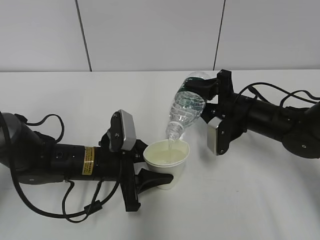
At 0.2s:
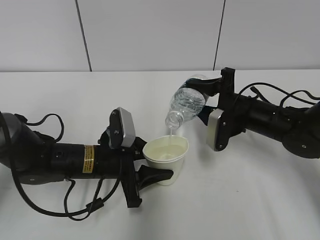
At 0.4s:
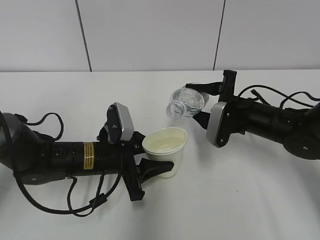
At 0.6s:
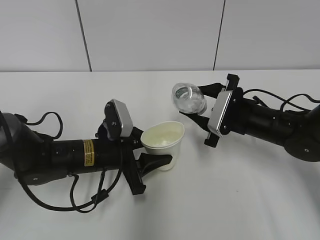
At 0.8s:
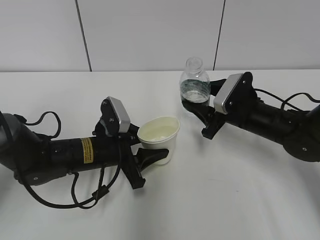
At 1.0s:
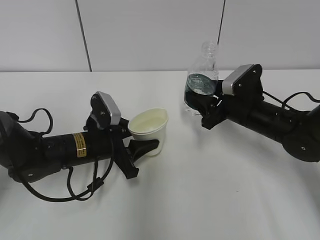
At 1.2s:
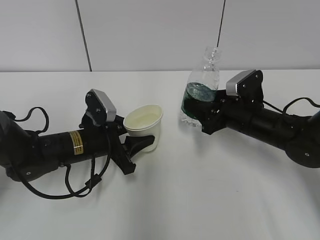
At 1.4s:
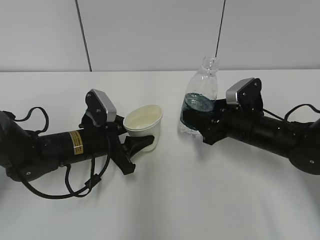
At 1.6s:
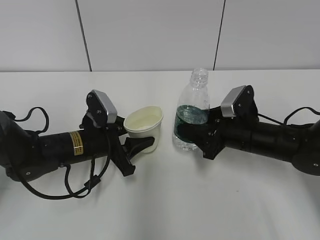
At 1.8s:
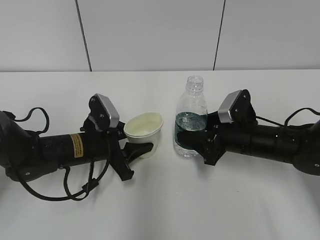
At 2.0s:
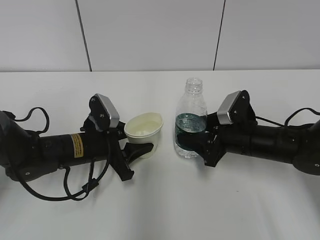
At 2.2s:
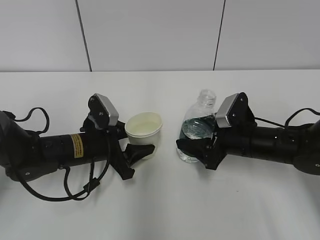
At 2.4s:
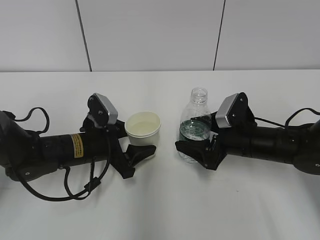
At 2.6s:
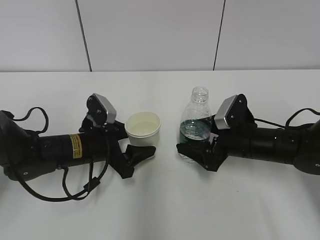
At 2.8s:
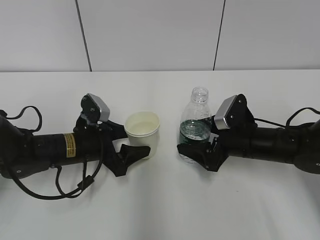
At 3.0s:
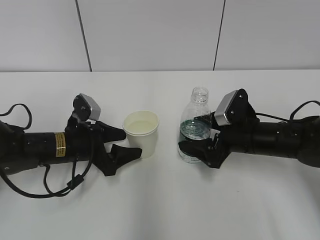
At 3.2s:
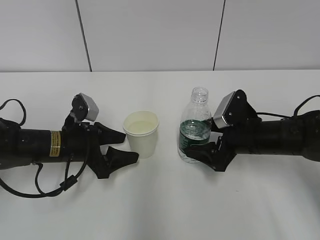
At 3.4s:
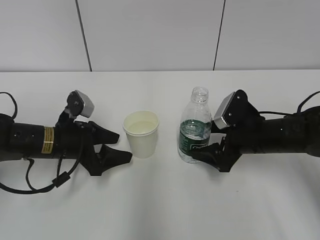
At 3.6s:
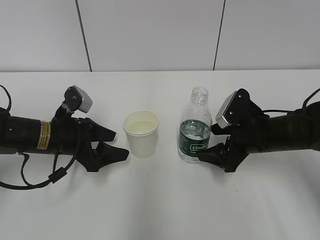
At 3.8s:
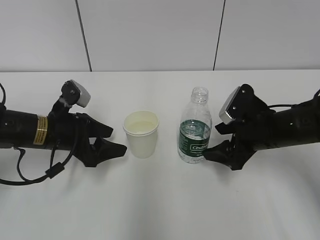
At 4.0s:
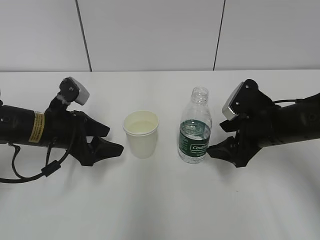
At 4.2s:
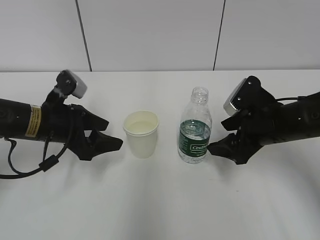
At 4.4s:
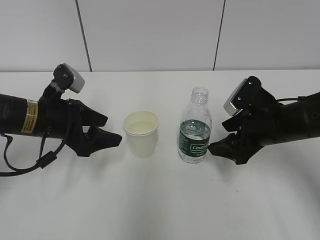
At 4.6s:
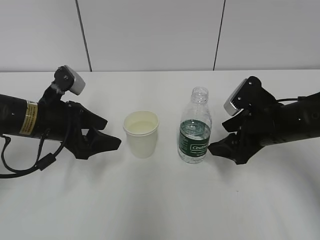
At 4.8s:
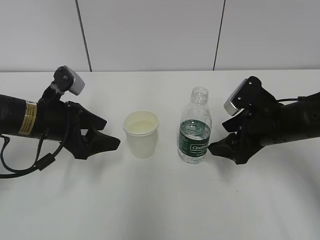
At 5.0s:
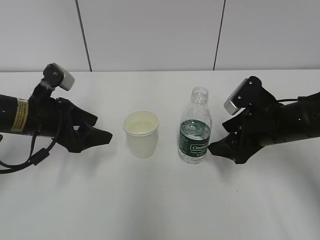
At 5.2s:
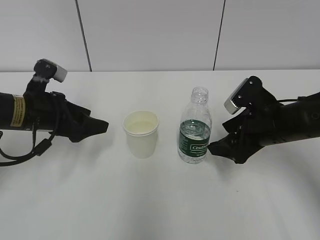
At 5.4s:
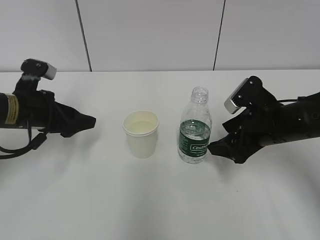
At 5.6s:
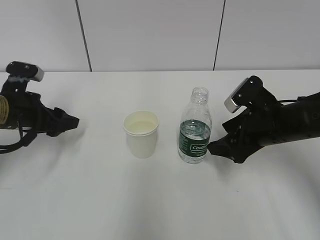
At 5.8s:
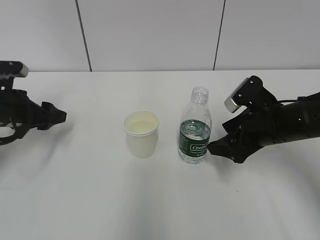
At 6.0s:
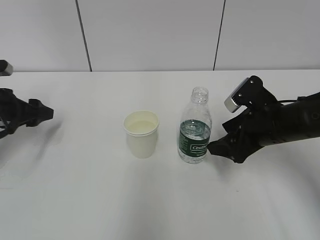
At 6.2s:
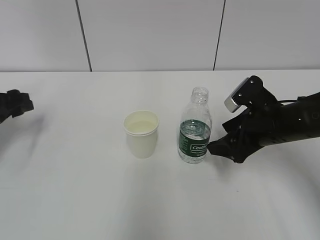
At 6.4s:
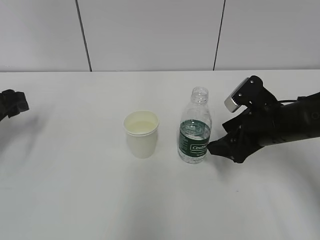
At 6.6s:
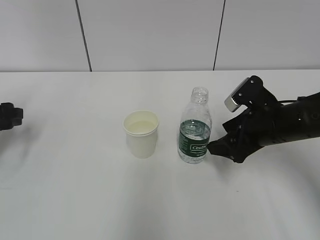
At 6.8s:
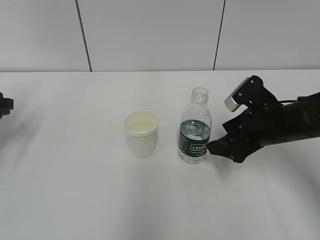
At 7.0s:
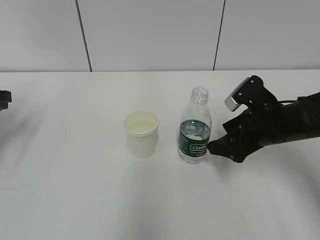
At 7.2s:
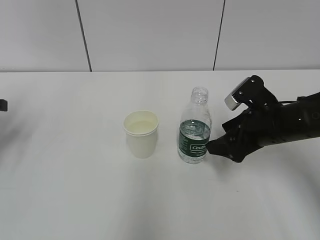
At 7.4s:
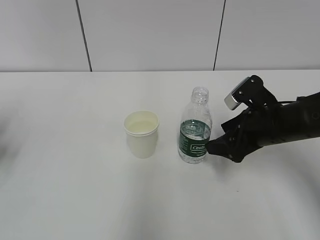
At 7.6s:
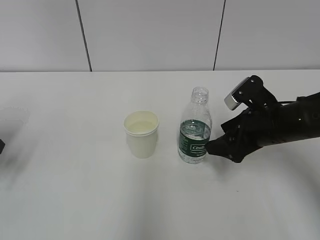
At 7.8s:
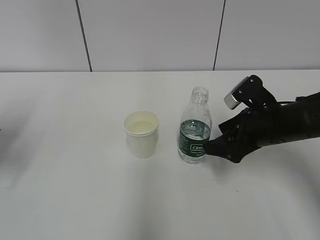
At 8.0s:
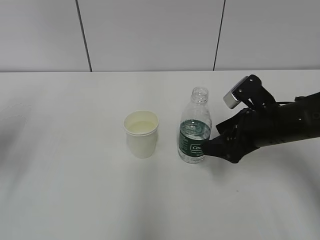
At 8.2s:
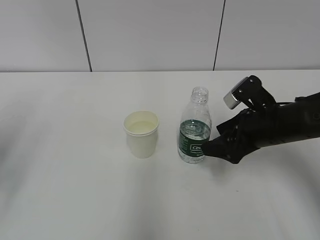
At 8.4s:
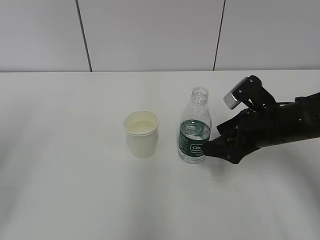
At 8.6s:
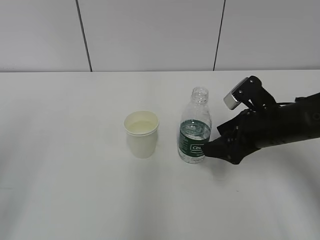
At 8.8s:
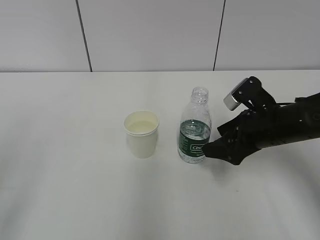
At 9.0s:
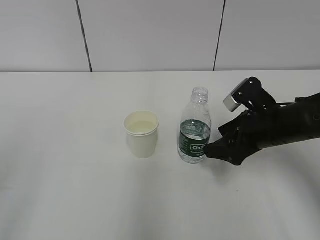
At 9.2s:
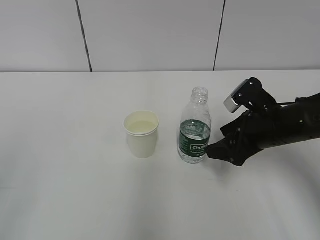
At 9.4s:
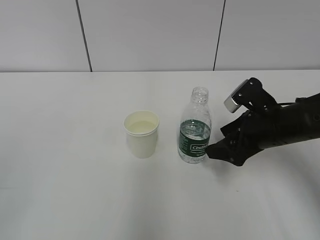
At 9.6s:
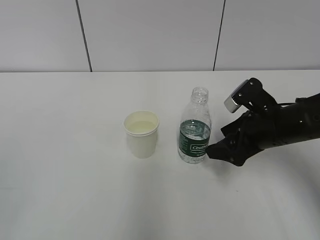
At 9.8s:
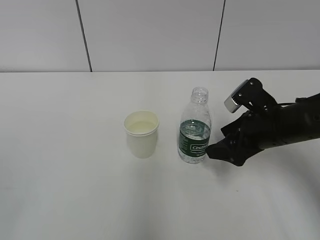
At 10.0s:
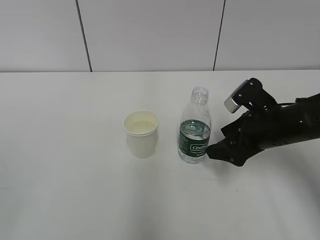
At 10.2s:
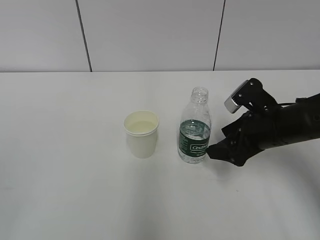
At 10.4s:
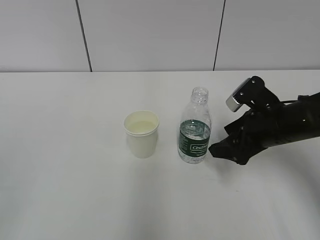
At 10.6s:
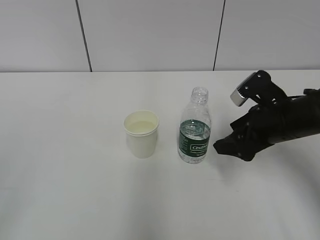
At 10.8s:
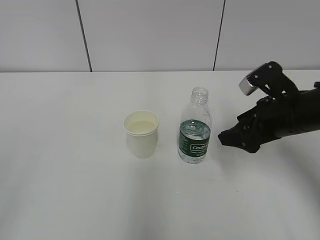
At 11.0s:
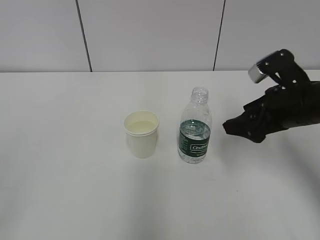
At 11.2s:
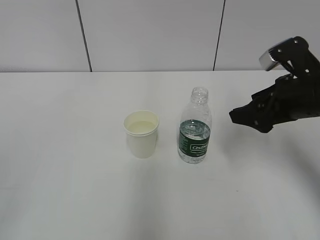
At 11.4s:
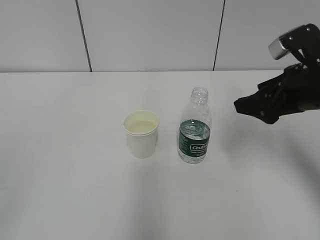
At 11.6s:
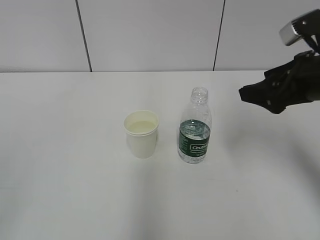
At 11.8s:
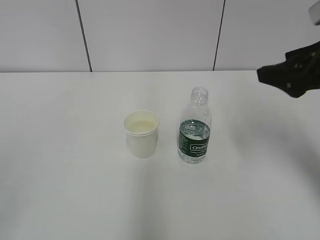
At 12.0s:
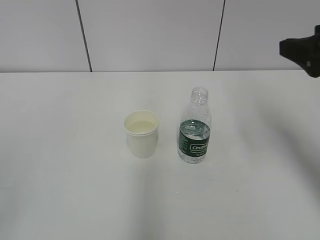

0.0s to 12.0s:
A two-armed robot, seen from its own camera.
1.6s to 3.0s: The right gripper opens; the left gripper opens its fingers.
3.0s to 4.4s: The left gripper travels upward by roughly 10 cm. The right gripper shifts by roughly 5 cm.
4.4s to 6.0s: The left gripper is displaced to the left by about 10 cm.
6.0s to 7.6s: The left gripper is displaced backward by approximately 5 cm.
7.6s to 9.0s: The left gripper is displaced backward and upward by approximately 30 cm.
10.4s to 12.0s: The right gripper moves upward, backward and to the right, approximately 20 cm.

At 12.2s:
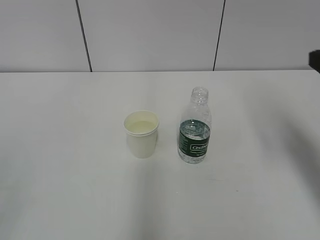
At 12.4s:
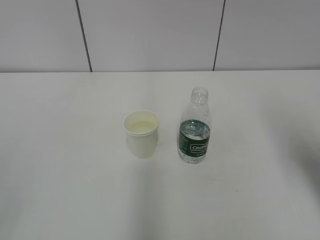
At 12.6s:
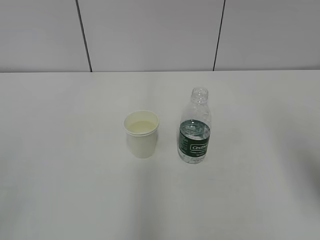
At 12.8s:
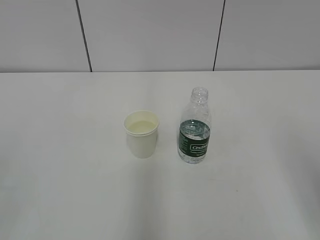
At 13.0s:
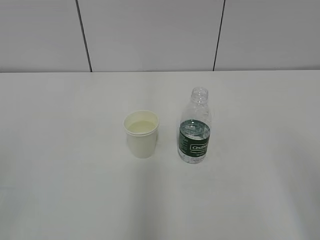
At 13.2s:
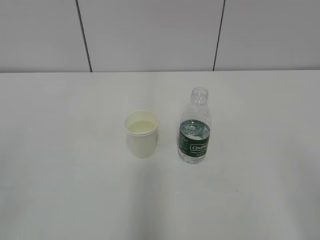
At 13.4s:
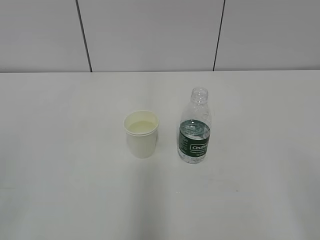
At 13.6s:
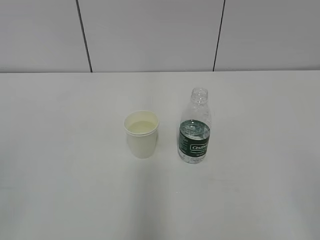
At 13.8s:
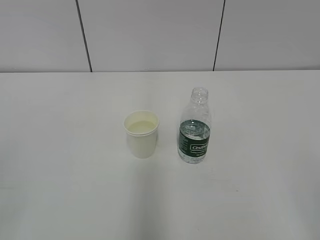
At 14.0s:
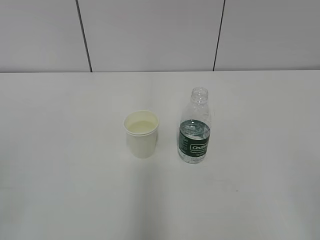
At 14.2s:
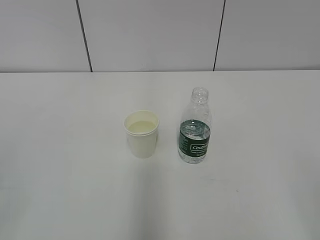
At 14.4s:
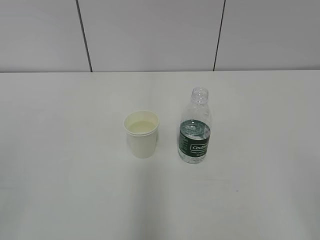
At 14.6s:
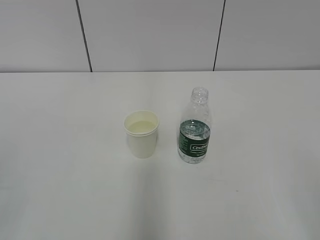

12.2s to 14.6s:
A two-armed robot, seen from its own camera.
12.2s to 13.4s: The right gripper shifts approximately 25 cm backward.

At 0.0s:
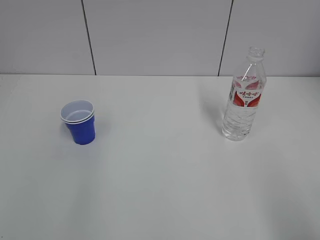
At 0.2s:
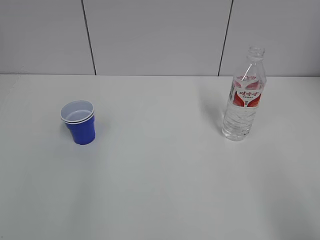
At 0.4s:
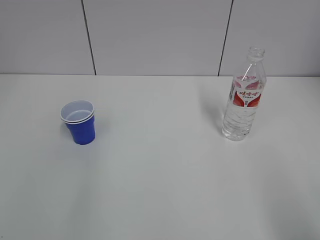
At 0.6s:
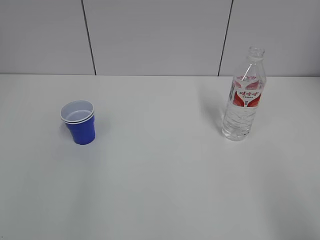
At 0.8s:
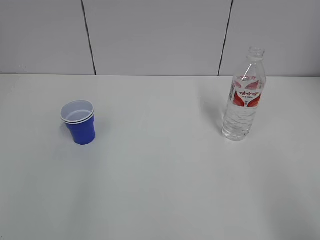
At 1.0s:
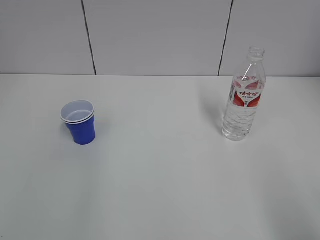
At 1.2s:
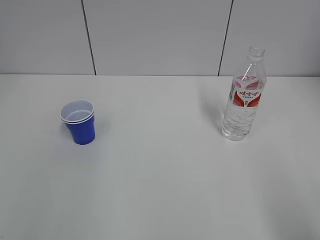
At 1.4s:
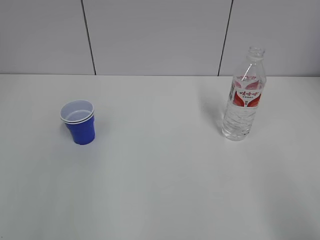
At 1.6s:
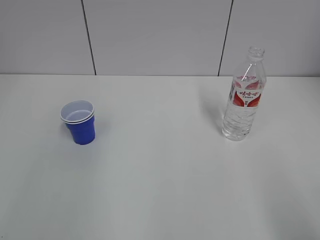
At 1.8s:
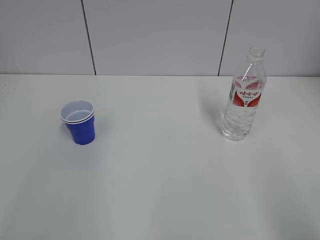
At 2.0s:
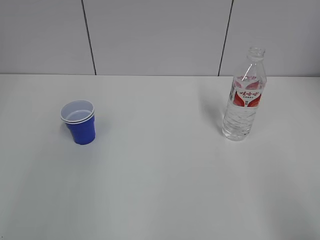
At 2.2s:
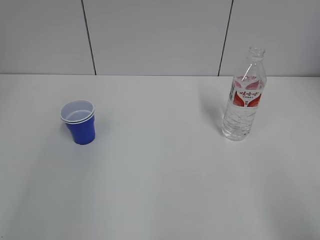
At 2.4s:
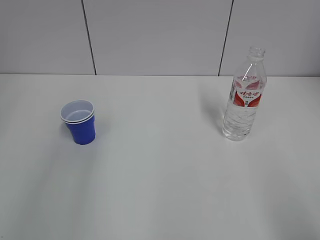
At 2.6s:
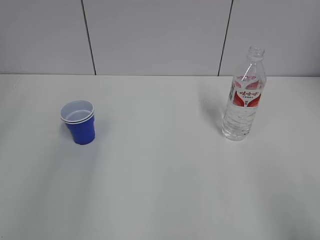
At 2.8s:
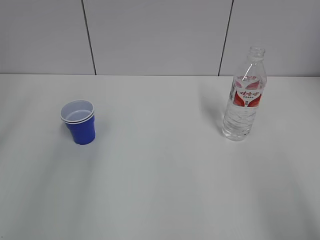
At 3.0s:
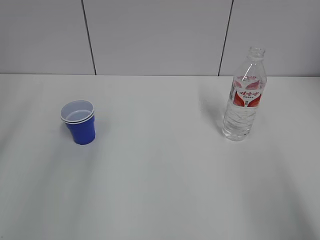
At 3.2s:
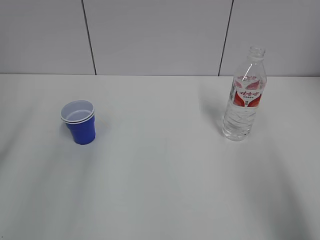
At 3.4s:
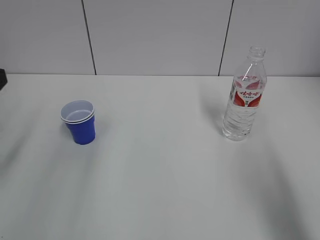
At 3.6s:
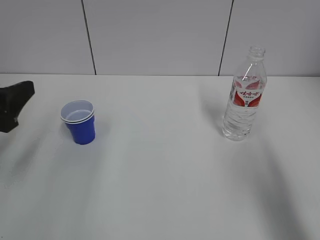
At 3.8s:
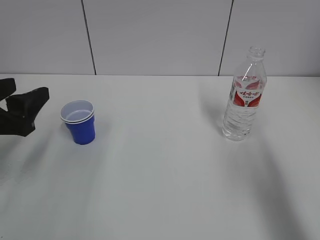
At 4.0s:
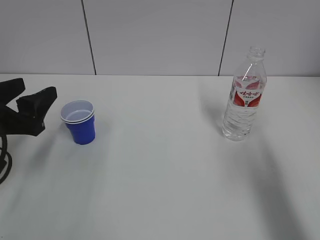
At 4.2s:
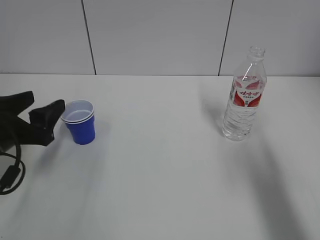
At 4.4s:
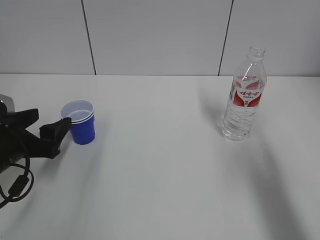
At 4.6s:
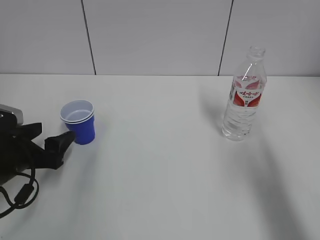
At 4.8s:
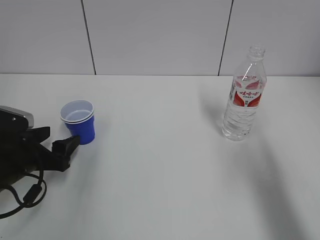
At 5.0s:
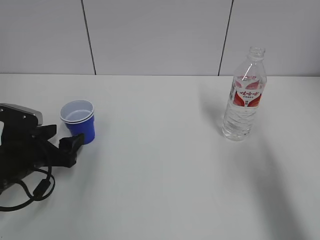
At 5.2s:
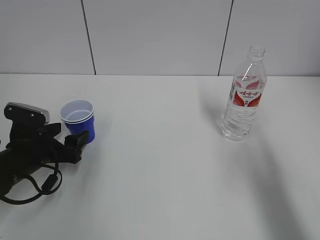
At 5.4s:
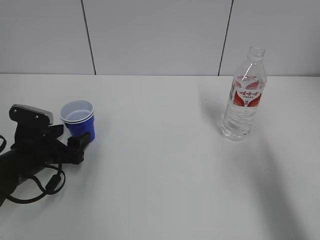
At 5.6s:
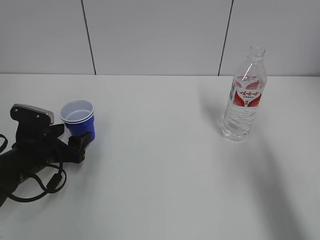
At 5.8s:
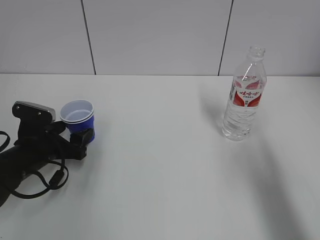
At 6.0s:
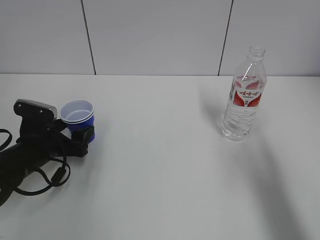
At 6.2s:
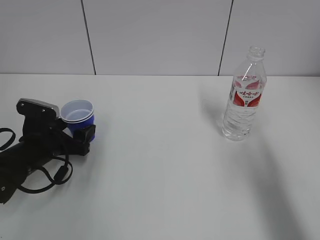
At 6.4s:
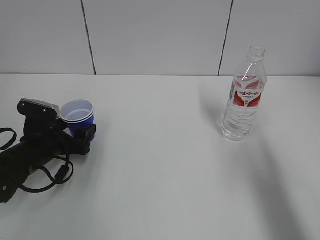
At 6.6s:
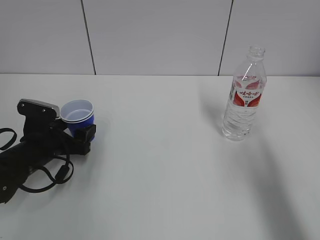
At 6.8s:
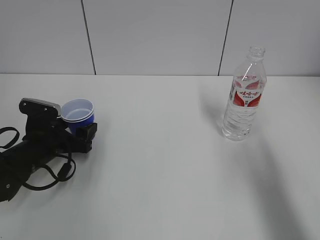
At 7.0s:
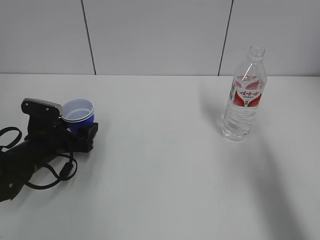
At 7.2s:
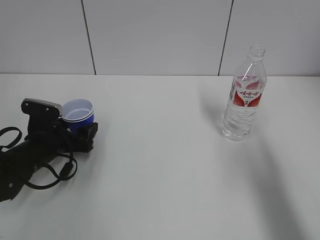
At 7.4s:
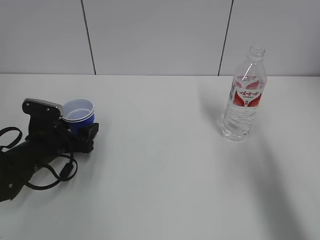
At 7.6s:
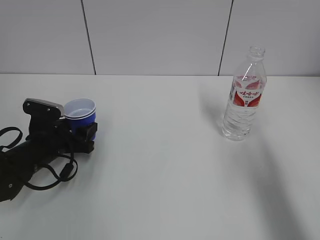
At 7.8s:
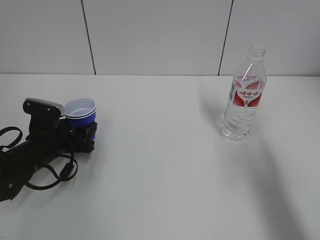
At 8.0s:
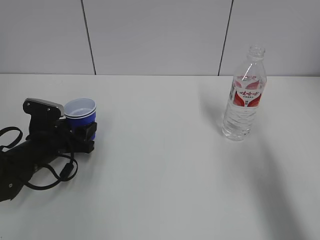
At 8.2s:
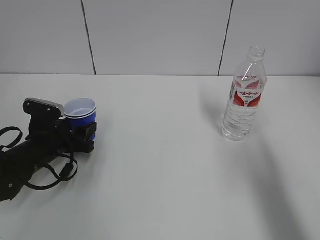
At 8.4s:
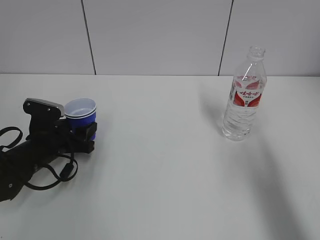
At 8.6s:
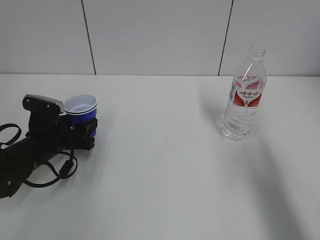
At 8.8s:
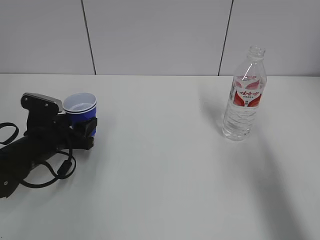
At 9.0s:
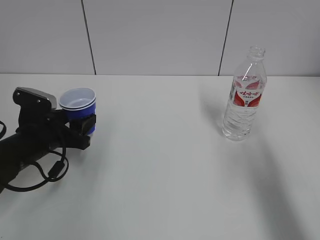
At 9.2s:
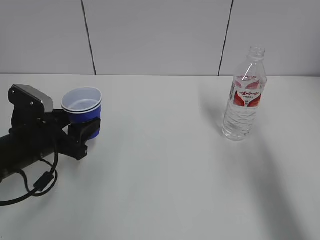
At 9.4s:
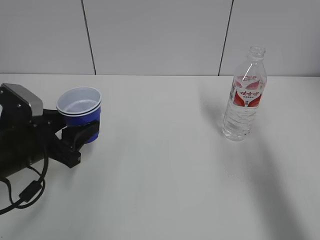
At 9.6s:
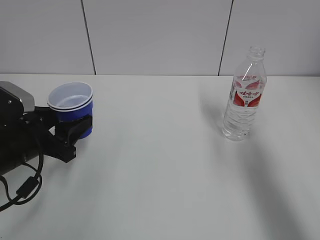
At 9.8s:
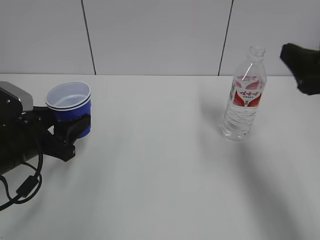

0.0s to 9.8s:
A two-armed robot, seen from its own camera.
Step, 0.0s to 8.2s: Grab the paper cup with the left hand.
2.8s to 4.2s: The right gripper heads forward, covering some 15 cm; the left gripper shifts about 20 cm downward and forward.
4.2s to 5.6s: The left gripper moves downward and forward, about 10 cm.
5.6s to 7.0s: The grippers make only small movements.
7.0s to 8.4s: The left gripper closes its fingers.
8.4s to 9.8s: The right gripper shifts about 5 cm forward, while the left gripper travels upward and backward by roughly 10 cm.
